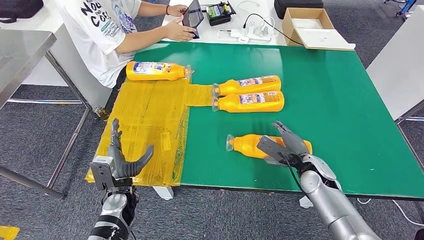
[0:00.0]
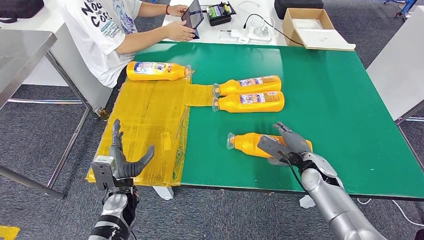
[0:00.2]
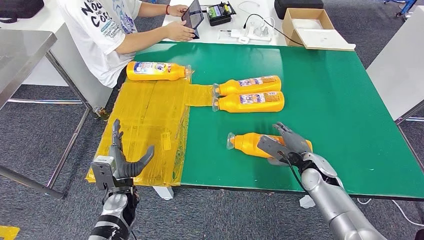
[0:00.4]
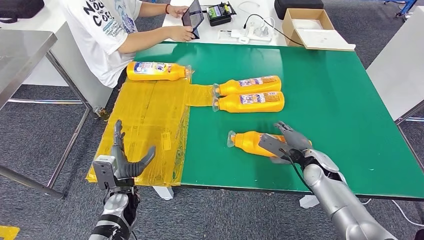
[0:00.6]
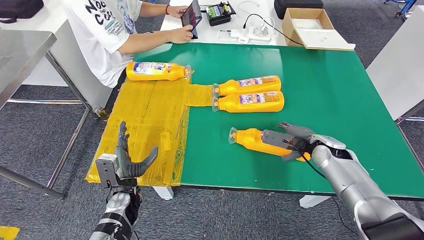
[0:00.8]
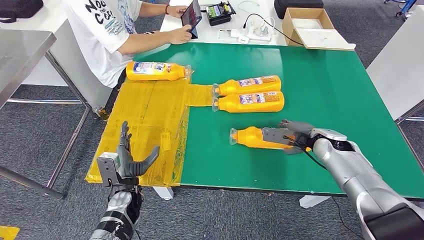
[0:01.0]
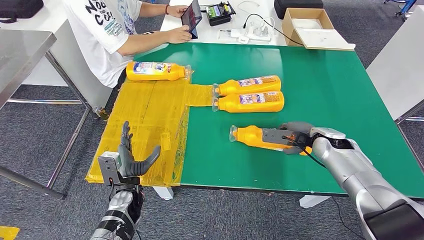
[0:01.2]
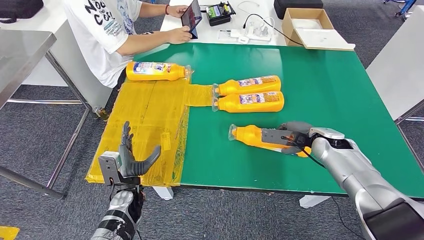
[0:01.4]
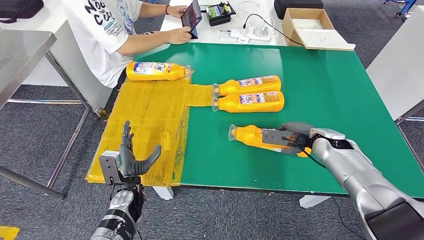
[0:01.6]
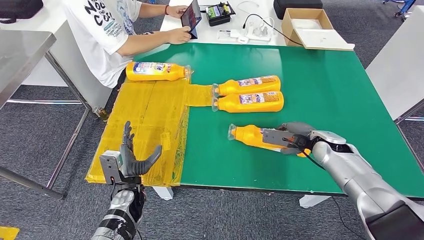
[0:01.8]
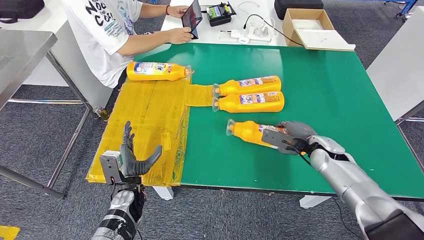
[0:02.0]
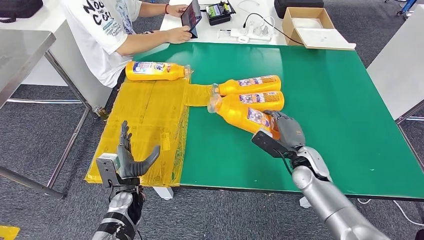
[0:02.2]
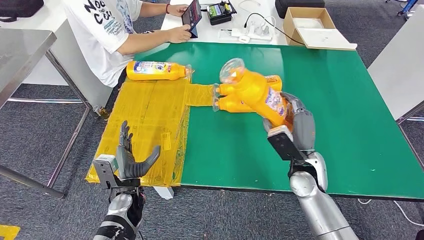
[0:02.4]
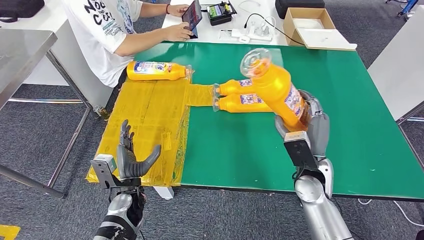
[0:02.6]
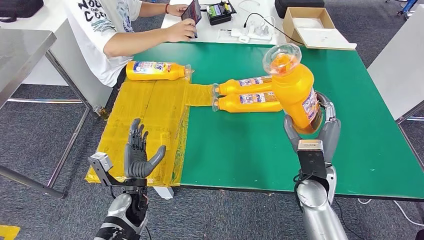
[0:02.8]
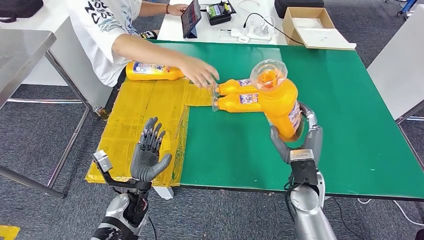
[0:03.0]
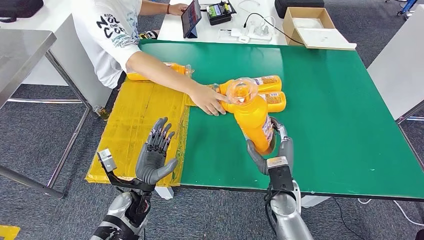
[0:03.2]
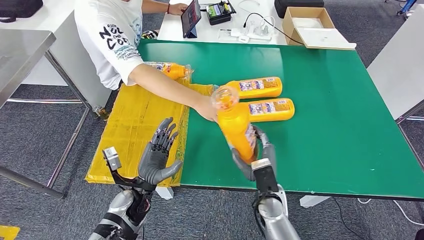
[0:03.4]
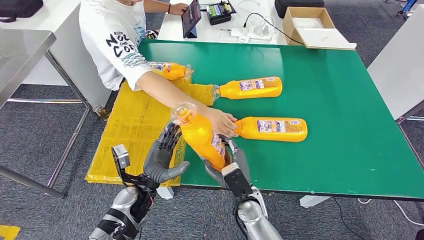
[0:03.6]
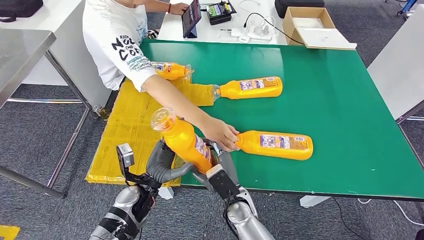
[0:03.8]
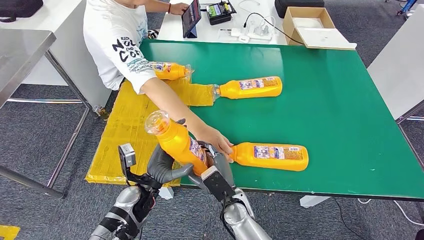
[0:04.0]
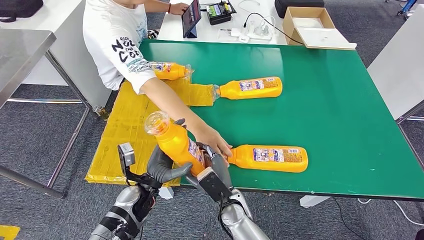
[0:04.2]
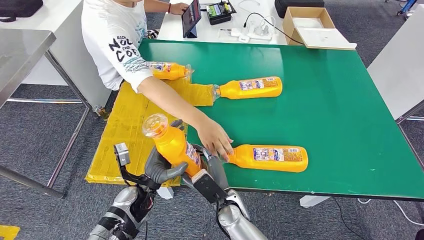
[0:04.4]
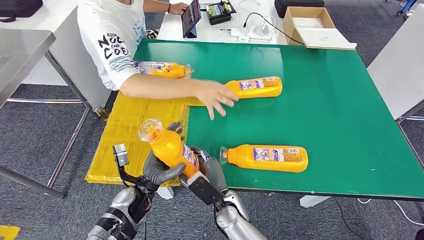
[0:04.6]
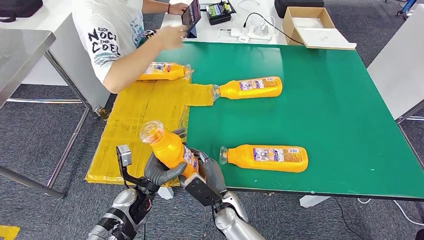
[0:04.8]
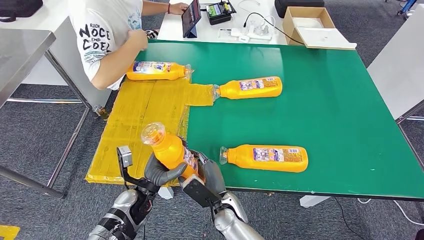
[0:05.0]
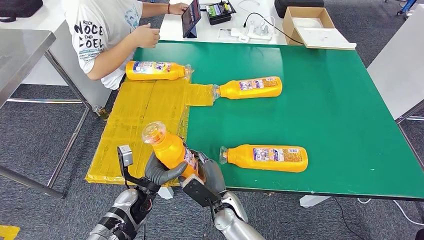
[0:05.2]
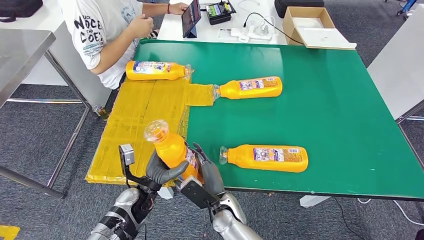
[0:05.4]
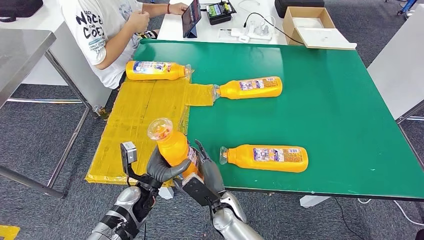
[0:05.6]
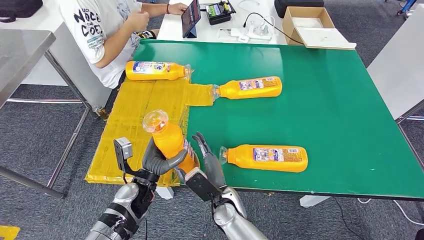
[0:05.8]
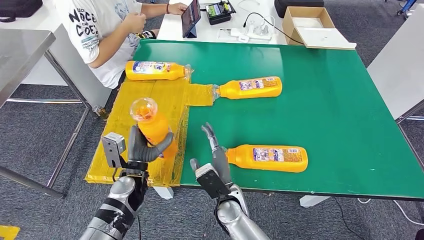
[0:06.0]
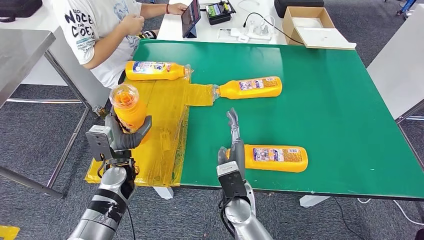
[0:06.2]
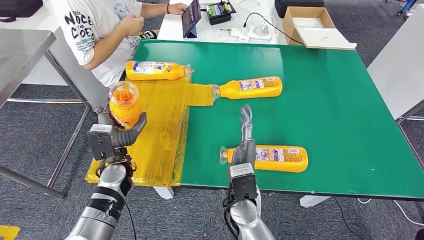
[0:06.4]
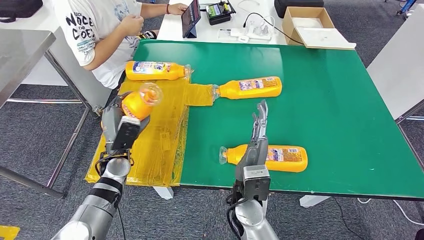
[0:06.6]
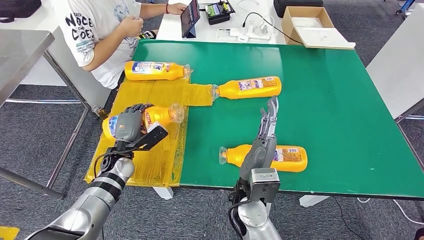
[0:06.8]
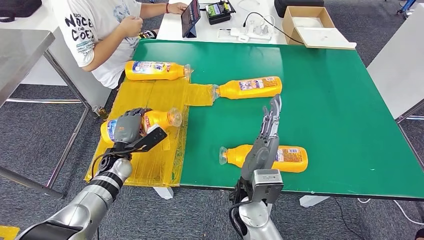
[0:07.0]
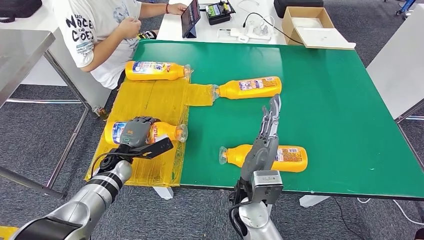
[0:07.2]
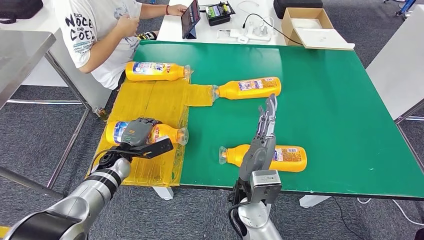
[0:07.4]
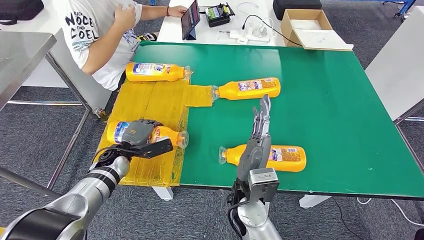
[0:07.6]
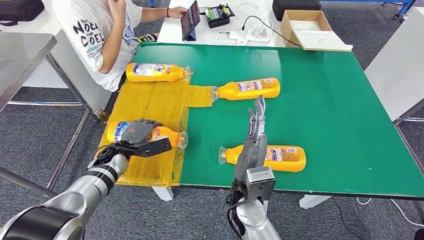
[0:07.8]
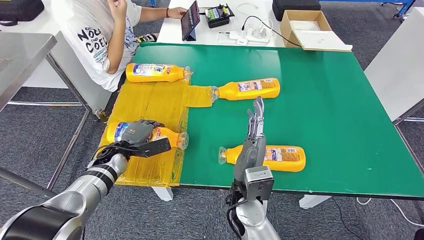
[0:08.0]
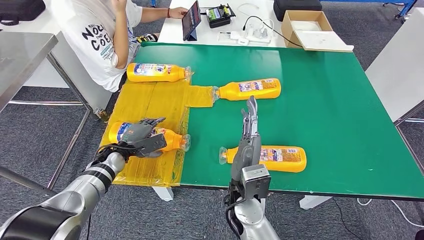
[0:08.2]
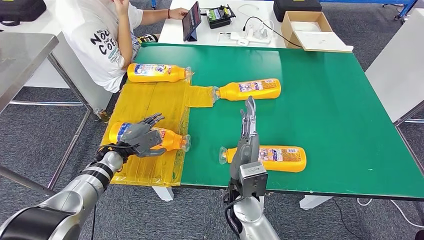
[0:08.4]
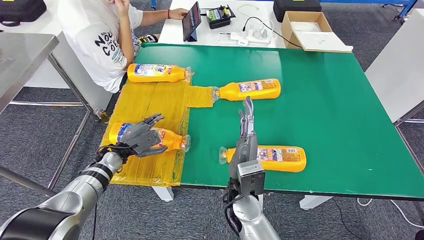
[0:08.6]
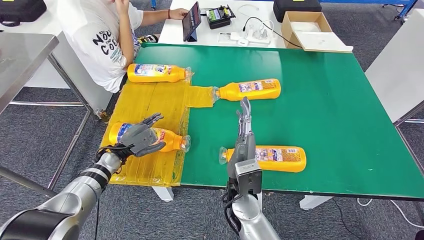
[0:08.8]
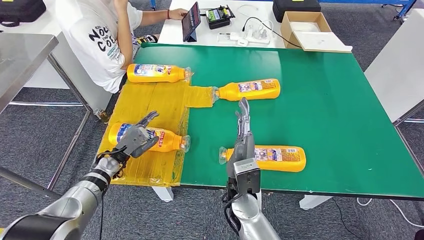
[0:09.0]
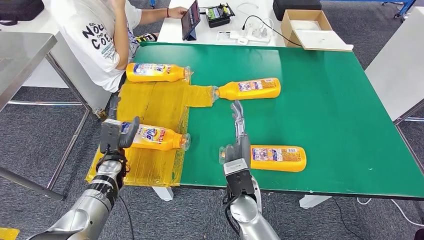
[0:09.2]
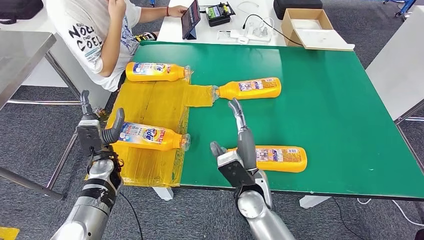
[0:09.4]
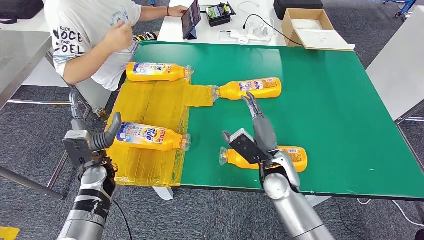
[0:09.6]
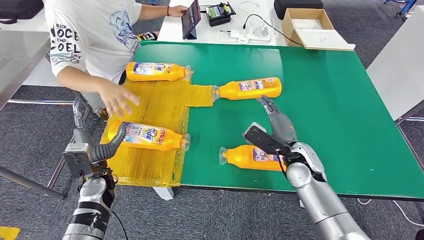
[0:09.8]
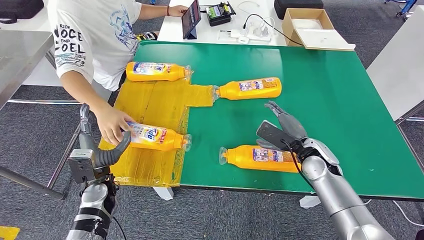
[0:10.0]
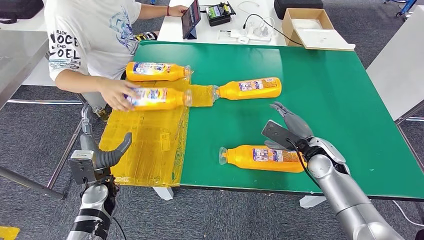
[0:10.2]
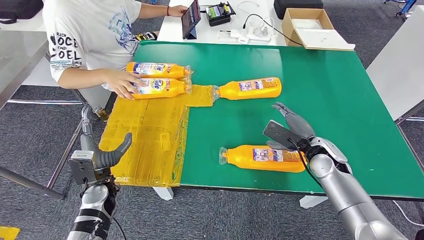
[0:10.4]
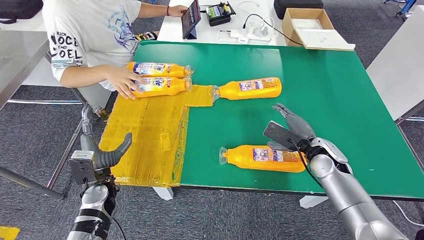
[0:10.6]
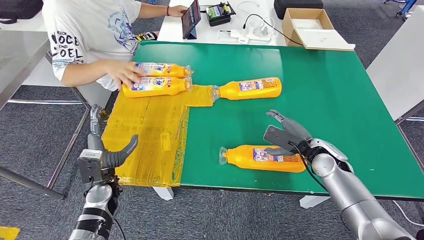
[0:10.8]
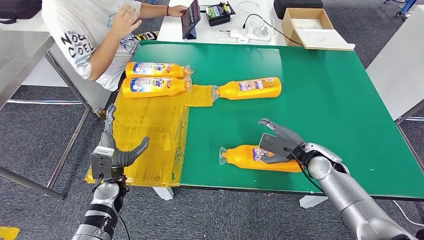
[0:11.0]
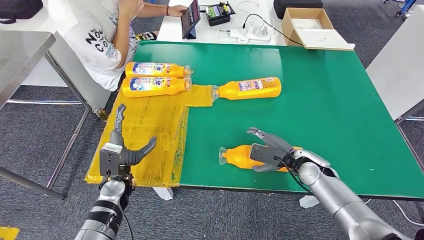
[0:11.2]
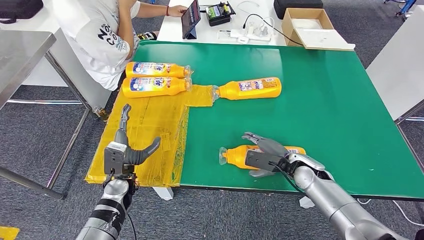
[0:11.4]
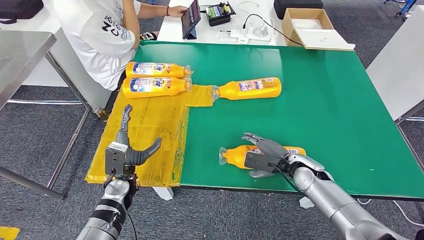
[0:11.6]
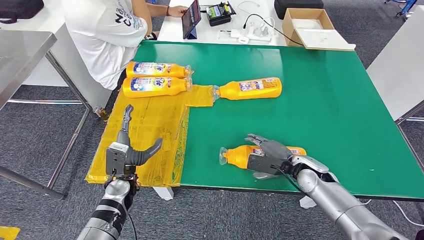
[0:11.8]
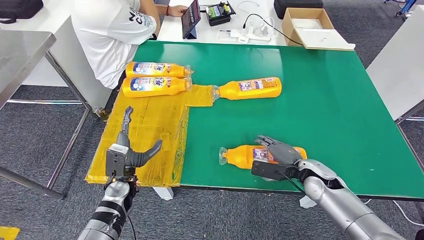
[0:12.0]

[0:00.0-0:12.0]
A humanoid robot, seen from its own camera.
Step, 0:00.0 to 0:03.0: Pick up the fast-moving consumer goods bottle from the table.
Step, 0:03.2 to 0:08.2: Flip the fast-moving consumer goods bottle to the front side.
0:00.0 to 0:01.6: The right hand shifts roughly 10 cm forward and upward.
0:10.4 to 0:12.0: The left hand changes place by approximately 5 cm, while the right hand shifts by roughly 5 cm.

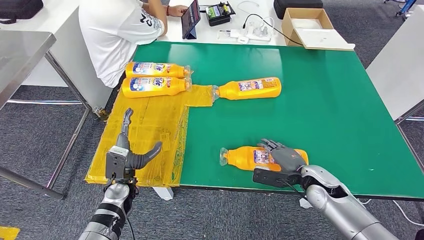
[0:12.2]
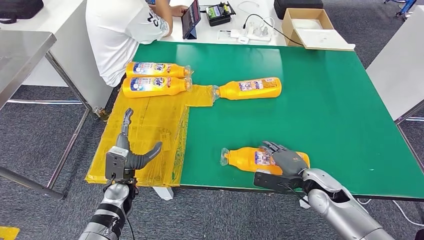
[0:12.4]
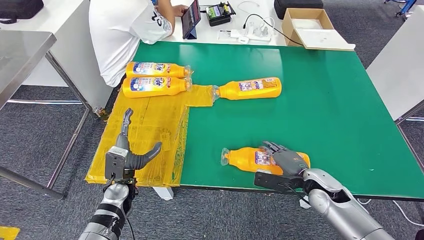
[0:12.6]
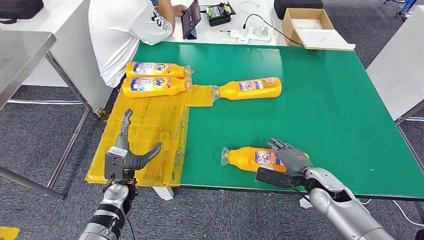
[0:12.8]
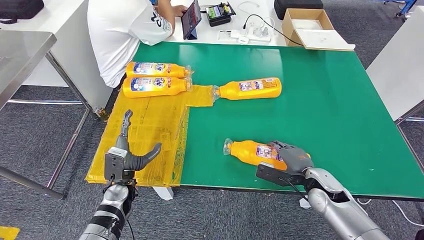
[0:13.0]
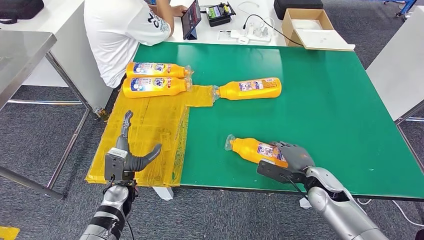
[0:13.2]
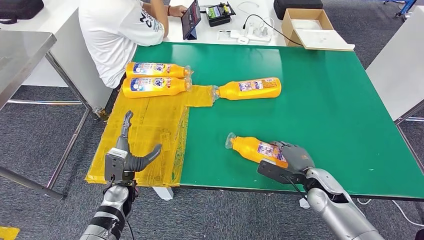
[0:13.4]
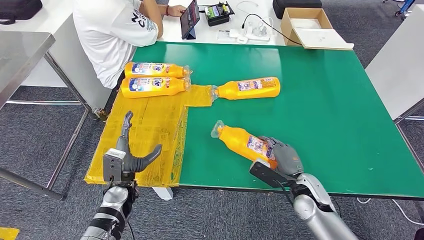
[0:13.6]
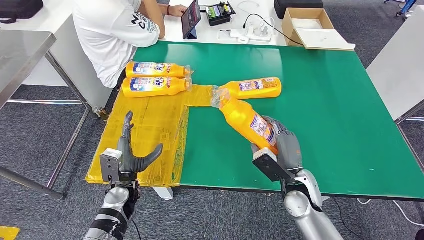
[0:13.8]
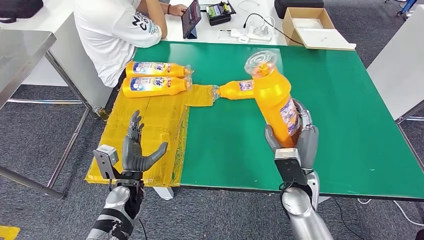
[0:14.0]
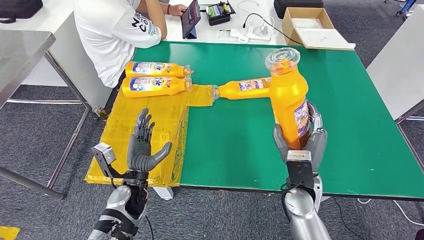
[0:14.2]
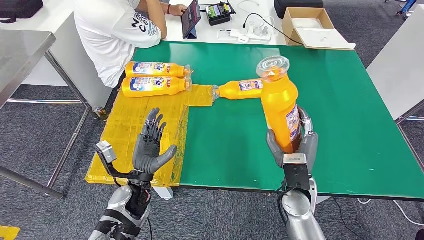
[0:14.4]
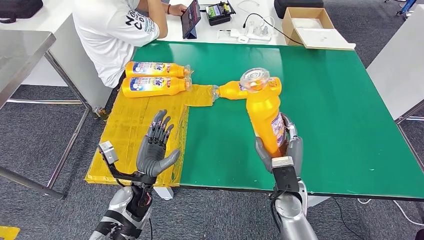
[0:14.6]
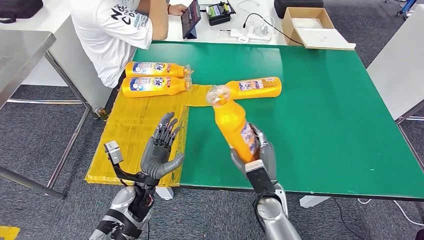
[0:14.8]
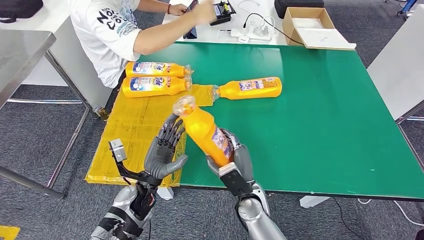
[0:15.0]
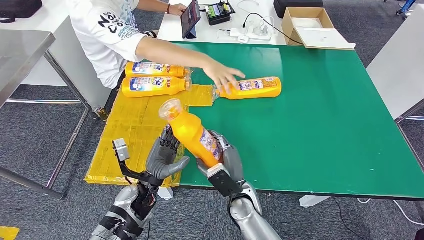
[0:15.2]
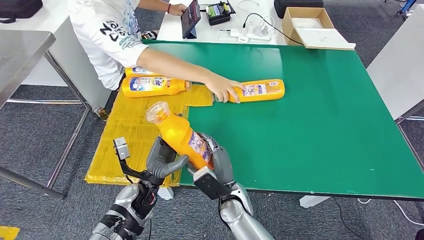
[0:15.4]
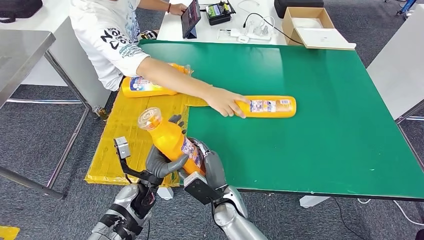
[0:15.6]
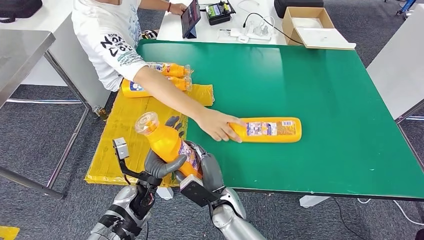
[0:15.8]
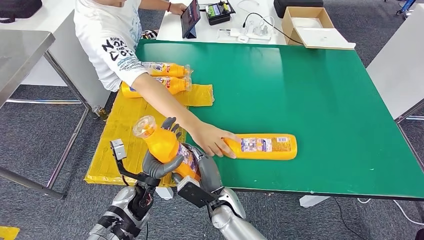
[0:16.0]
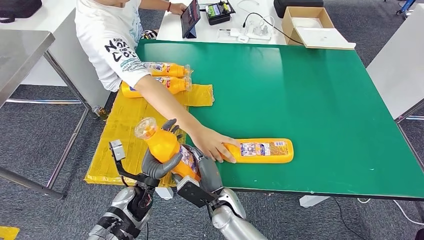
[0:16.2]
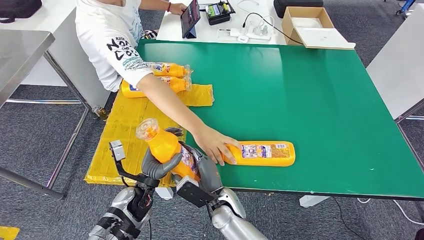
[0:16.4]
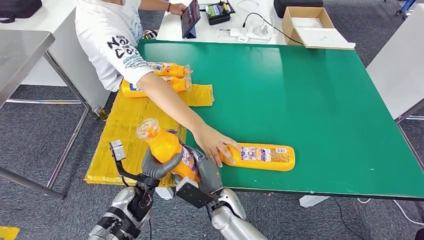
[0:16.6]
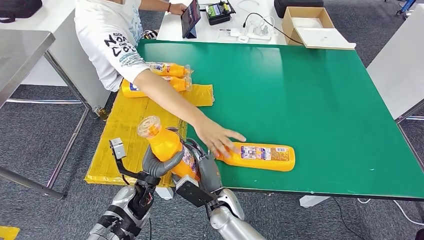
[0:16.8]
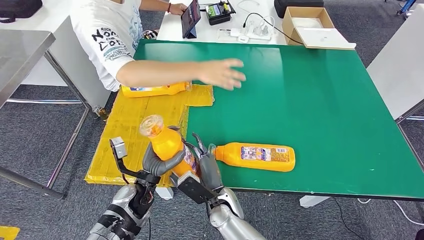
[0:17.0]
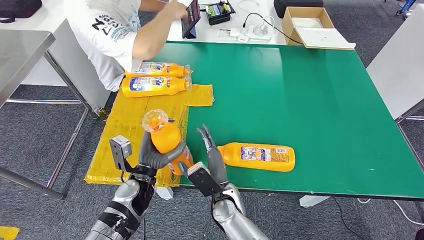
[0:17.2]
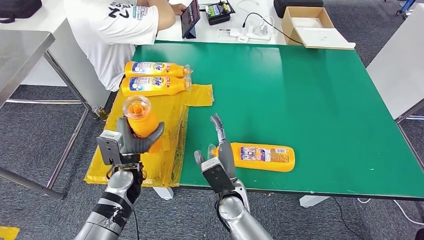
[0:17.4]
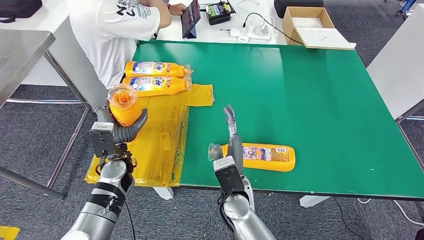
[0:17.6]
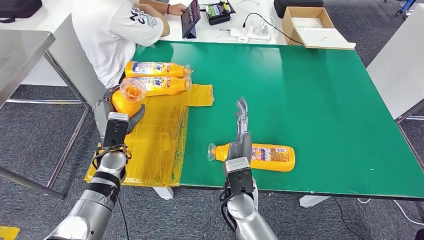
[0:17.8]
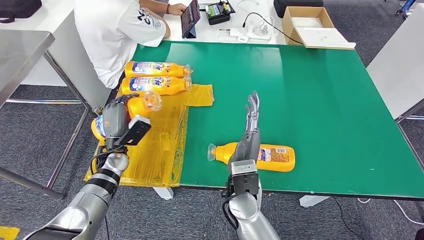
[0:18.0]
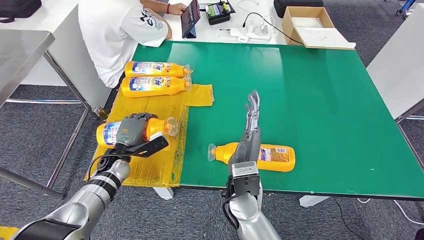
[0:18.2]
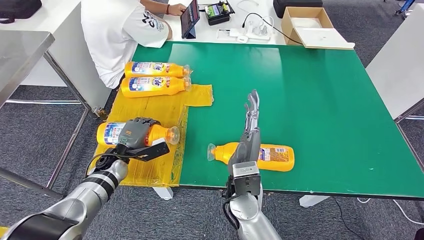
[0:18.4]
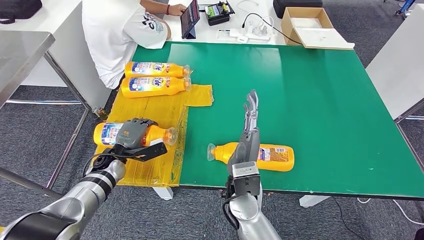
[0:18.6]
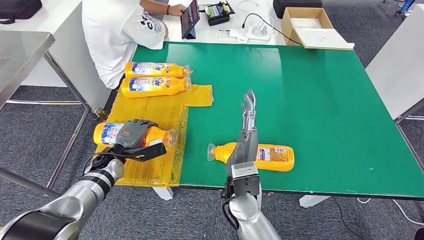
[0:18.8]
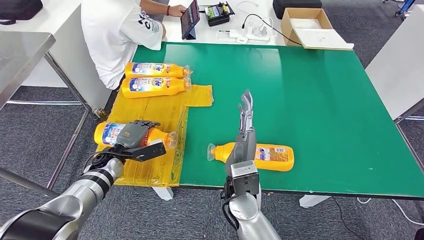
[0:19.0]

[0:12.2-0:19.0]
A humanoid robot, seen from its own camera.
Step, 0:12.2 to 0:14.6: Pick up the fast-moving consumer goods bottle from the table.
0:15.0 to 0:16.2: The right hand goes approximately 5 cm to the left.
